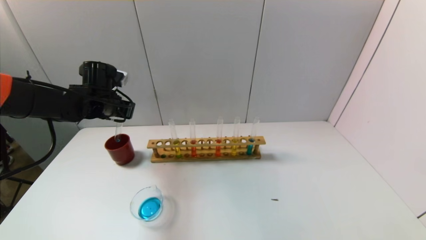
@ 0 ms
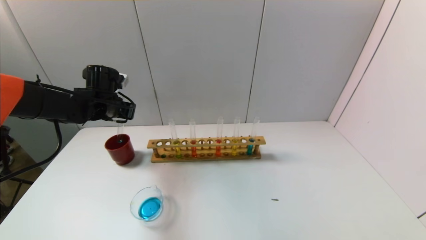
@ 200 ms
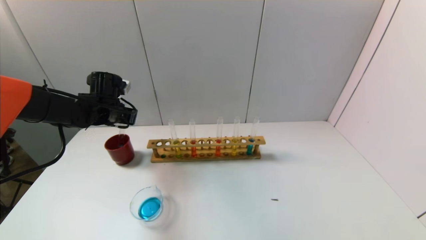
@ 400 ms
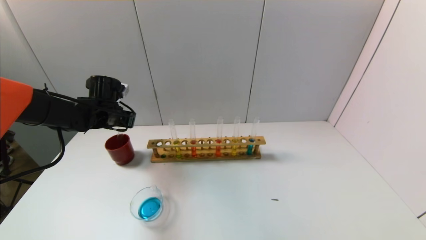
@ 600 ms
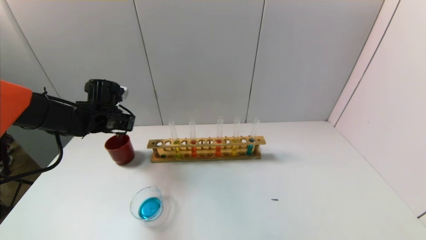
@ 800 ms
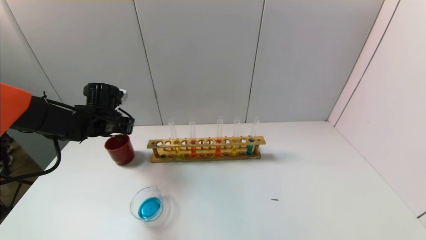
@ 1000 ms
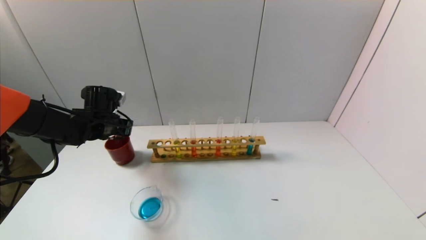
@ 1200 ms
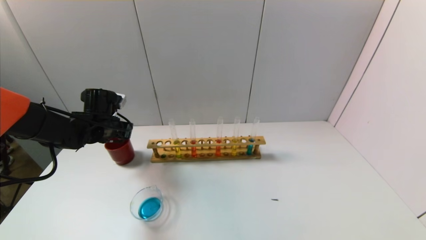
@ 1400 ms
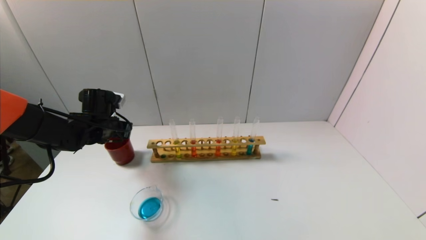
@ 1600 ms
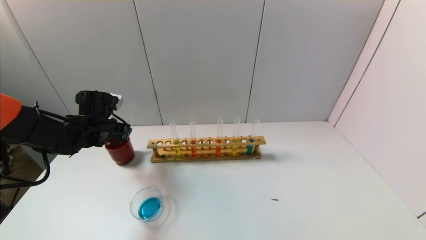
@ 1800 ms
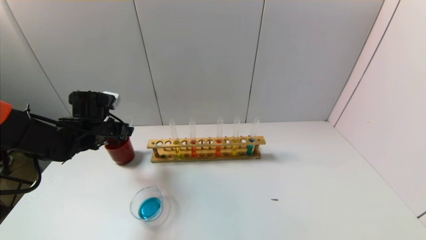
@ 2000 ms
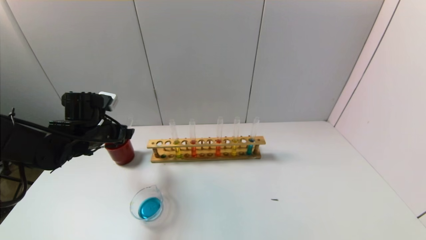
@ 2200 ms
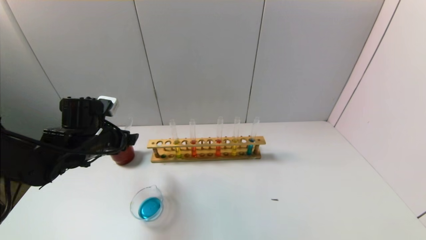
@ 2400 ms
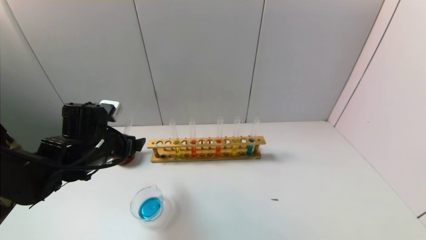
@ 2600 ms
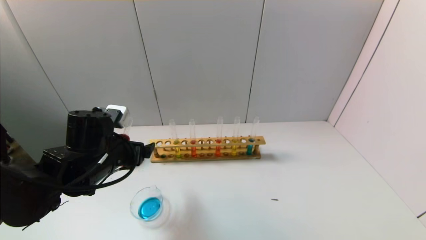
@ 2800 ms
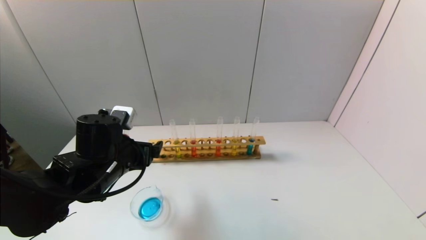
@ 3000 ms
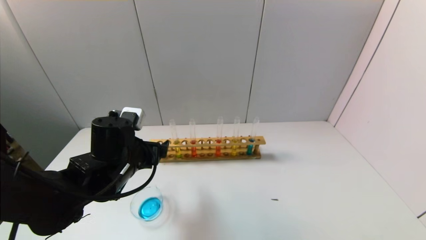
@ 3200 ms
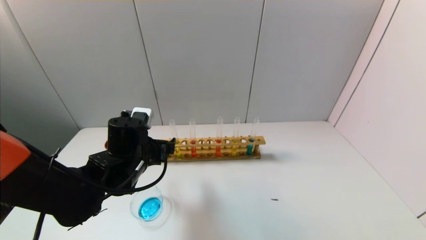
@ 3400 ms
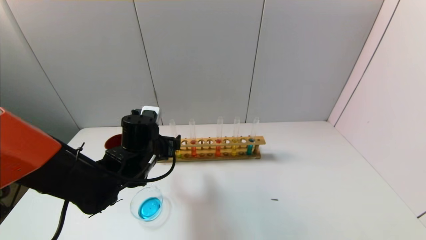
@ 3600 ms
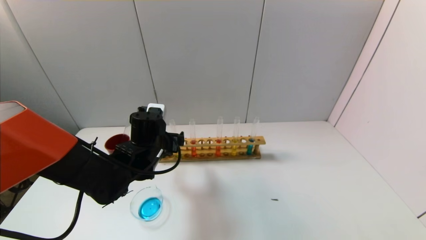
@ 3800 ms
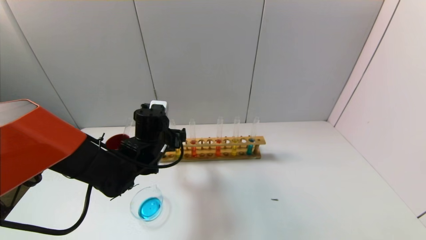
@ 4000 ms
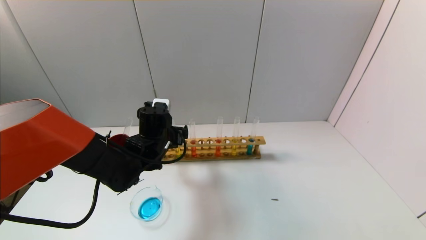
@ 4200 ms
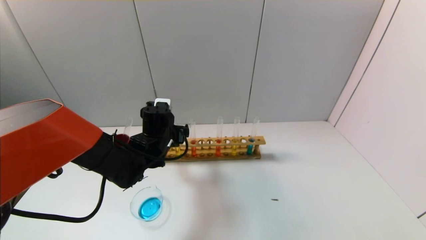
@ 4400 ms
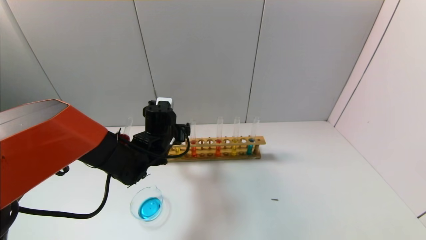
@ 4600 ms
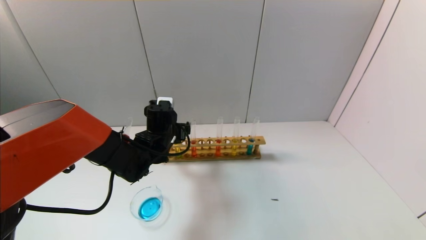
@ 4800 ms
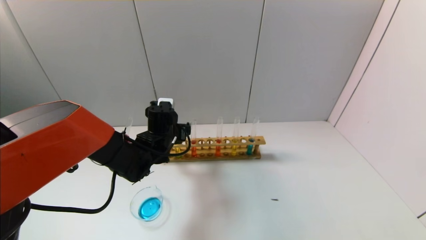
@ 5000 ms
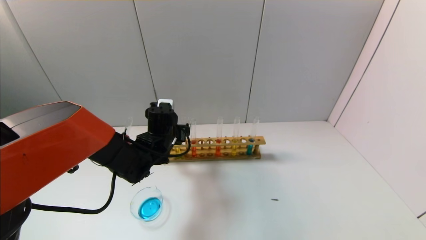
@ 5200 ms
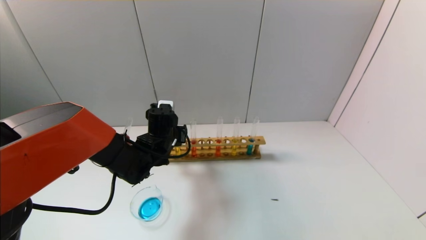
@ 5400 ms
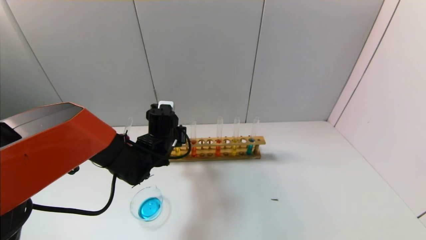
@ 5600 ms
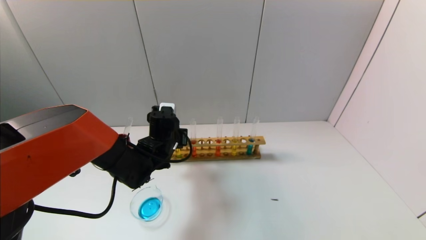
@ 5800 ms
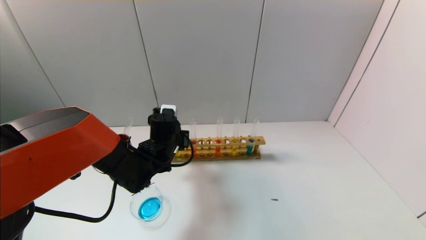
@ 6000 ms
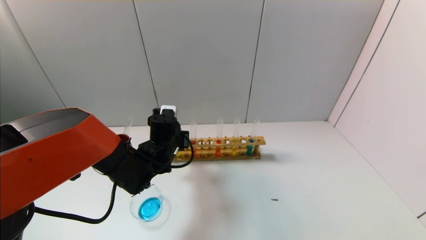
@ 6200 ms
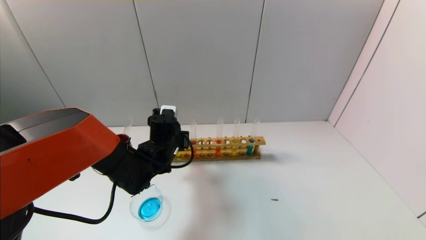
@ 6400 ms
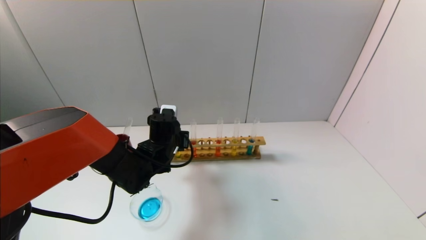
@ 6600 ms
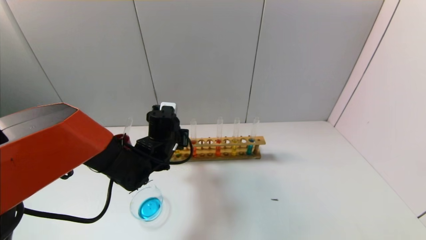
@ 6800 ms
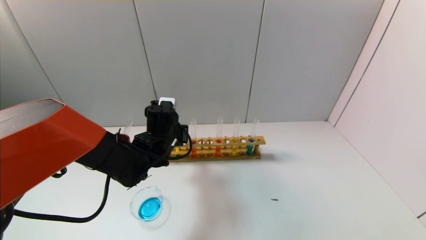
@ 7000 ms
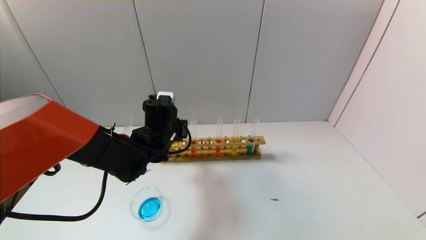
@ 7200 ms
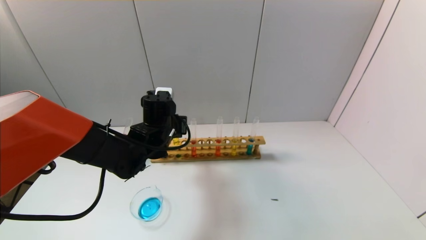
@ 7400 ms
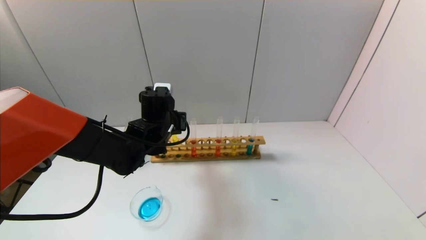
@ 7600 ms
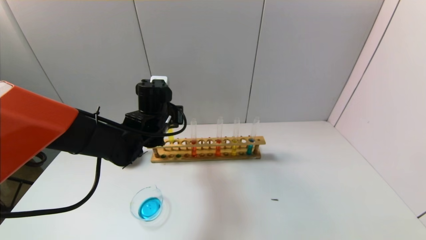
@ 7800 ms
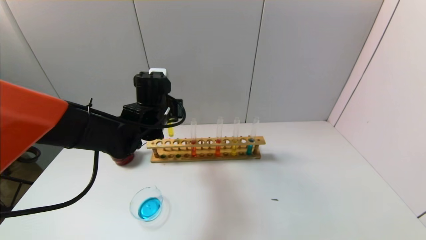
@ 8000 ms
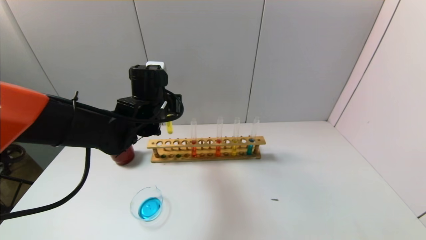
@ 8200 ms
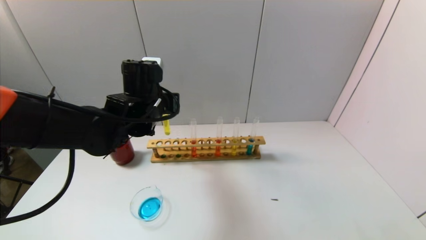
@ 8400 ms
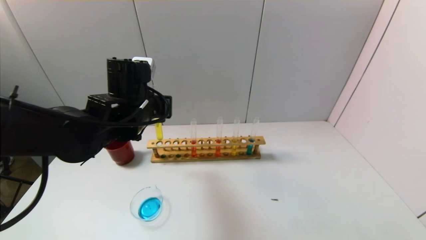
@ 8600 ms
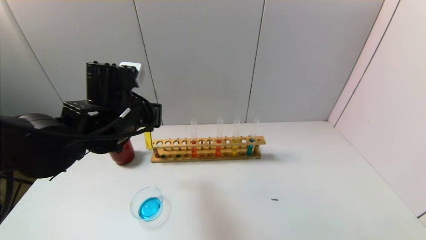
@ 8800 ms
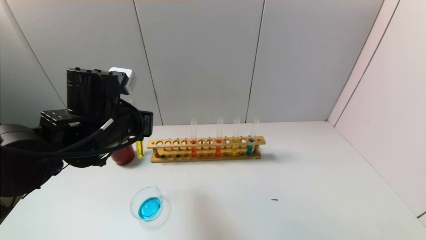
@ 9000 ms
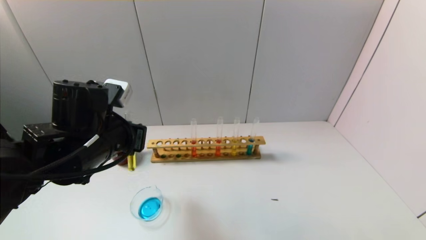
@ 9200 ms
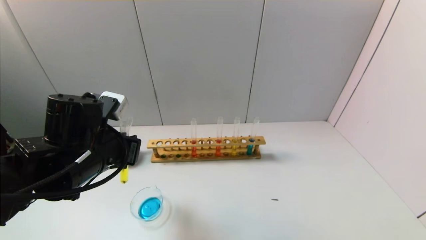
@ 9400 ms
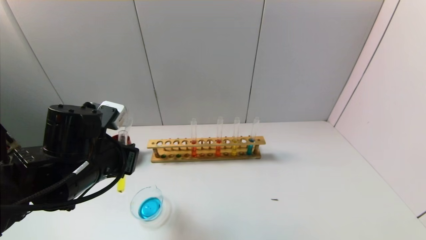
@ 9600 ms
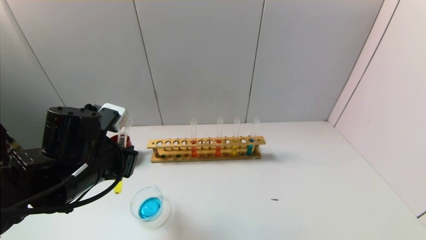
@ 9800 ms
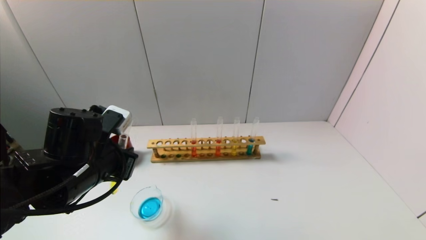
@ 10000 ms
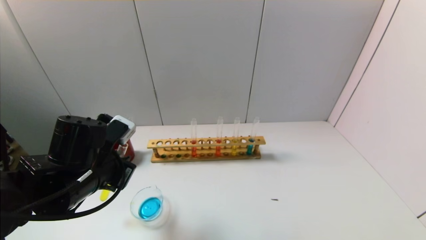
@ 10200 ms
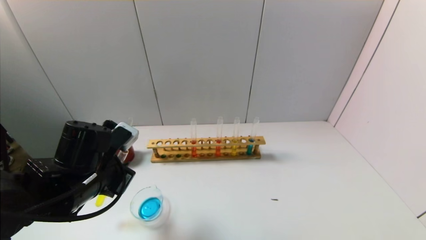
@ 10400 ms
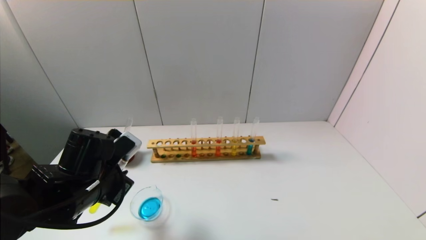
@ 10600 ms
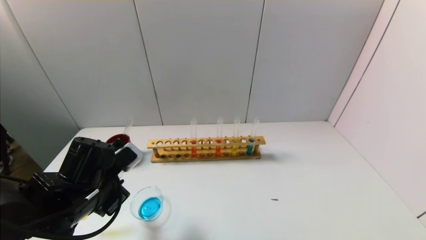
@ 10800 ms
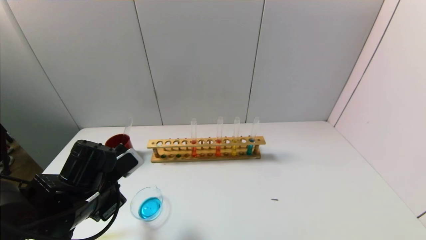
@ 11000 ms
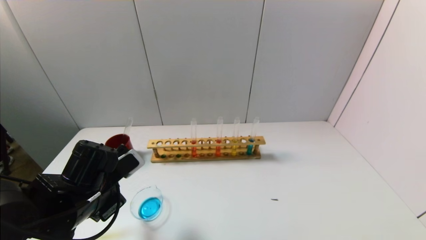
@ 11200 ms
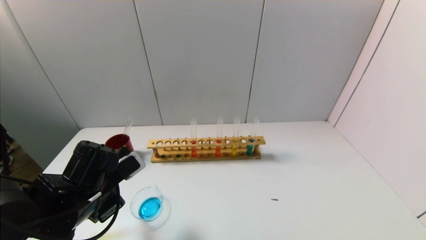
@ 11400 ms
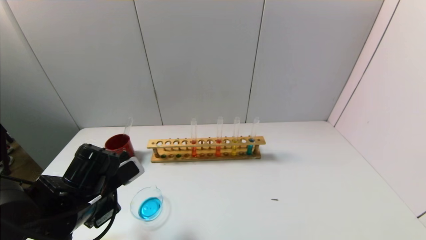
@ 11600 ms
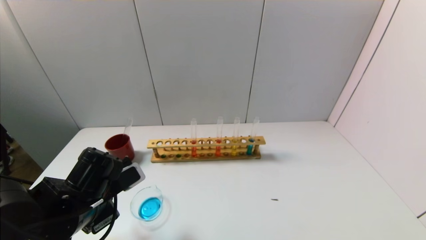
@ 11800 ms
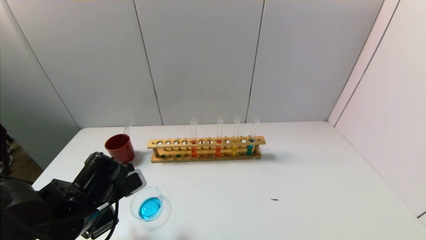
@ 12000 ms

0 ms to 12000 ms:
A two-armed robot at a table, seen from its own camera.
Task of the whole recording: pick up the test tube with yellow pigment and the test tube with blue pigment by grippers and pour them into the beaker.
Step, 0 ms to 2000 ms: Place the test tube into the brown cup with the left gripper.
Step, 2200 ms to 5800 ms: Grasp the yellow reagent with the left gripper.
0 ms to 1600 ms: The left gripper heads downward, covering some 5 cm.
1600 ms to 3000 ms: The left gripper travels backward and to the right by approximately 15 cm, and opens its fingers.
3000 ms to 4400 ms: The left gripper is displaced forward and to the right by some 10 cm.
4400 ms to 6000 ms: The left gripper closes.
6000 ms to 7600 ms: The left gripper shifts some 5 cm upward.
7600 ms to 9000 ms: The left gripper travels backward, upward and to the left by approximately 15 cm.
9000 ms to 10400 ms: The left gripper moves downward, roughly 5 cm.
10400 ms to 12000 ms: The left gripper changes place by approximately 5 cm.

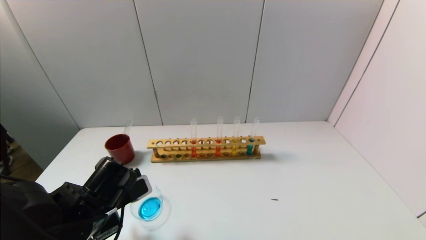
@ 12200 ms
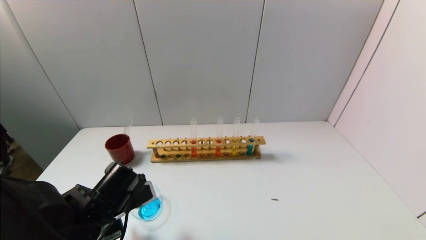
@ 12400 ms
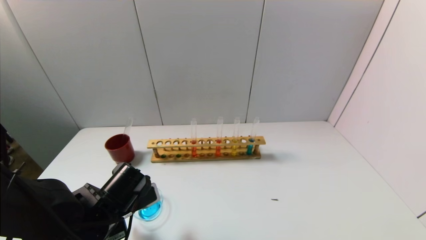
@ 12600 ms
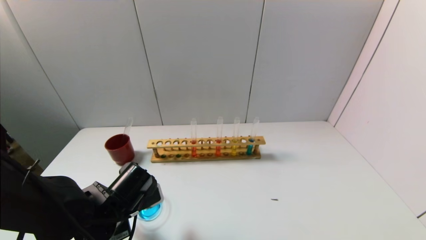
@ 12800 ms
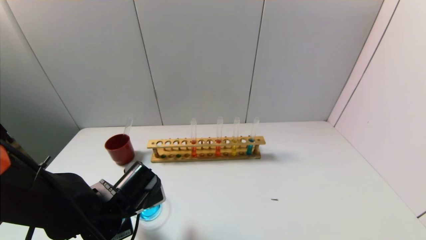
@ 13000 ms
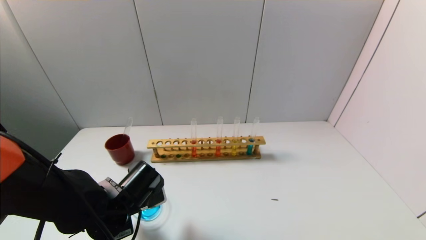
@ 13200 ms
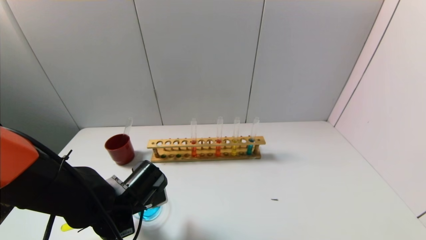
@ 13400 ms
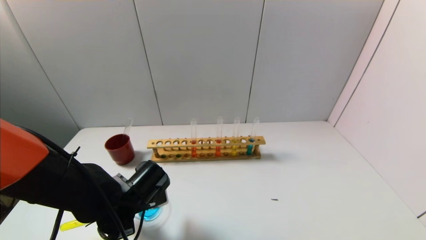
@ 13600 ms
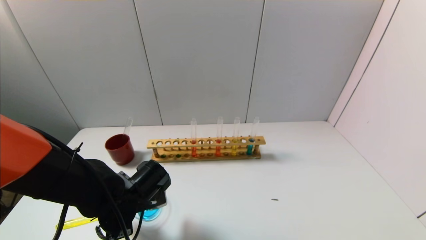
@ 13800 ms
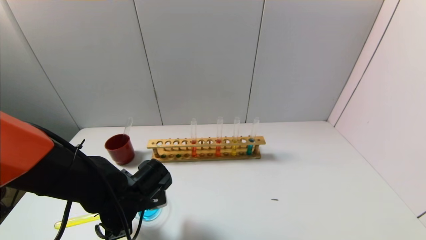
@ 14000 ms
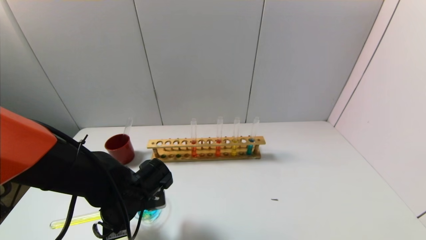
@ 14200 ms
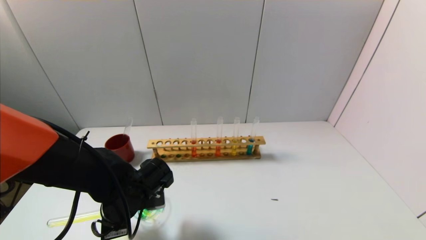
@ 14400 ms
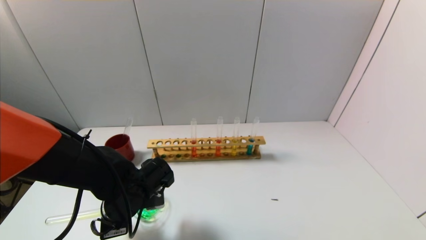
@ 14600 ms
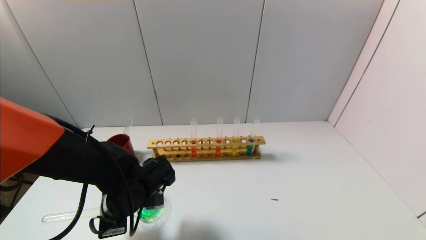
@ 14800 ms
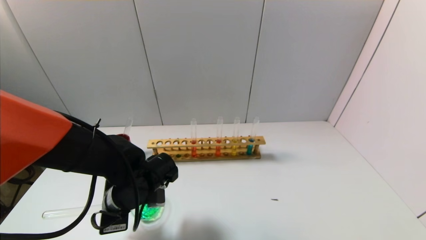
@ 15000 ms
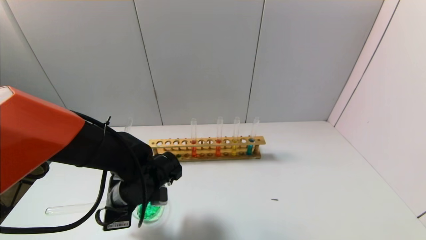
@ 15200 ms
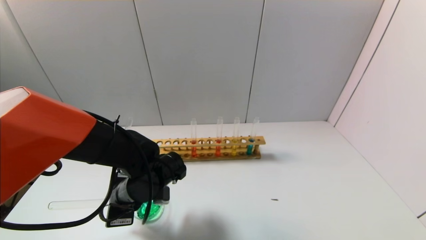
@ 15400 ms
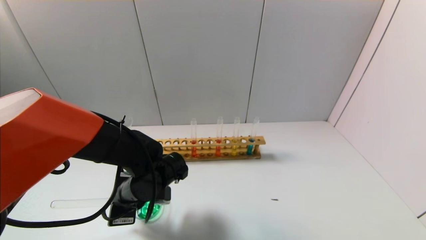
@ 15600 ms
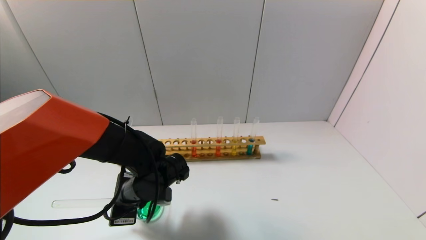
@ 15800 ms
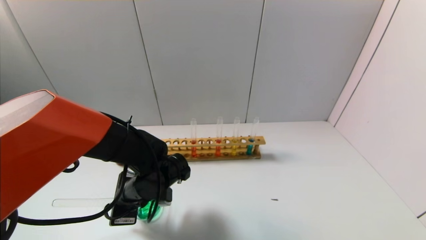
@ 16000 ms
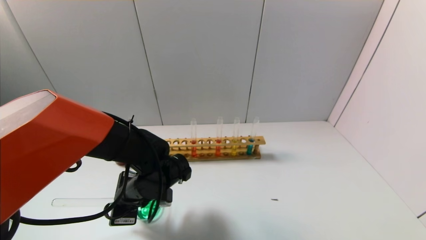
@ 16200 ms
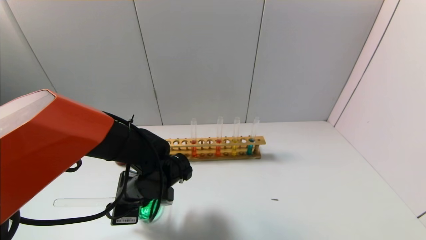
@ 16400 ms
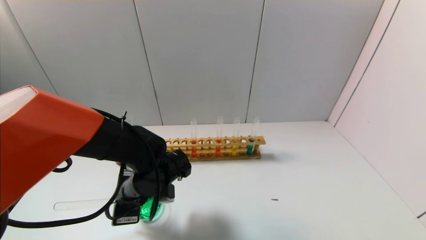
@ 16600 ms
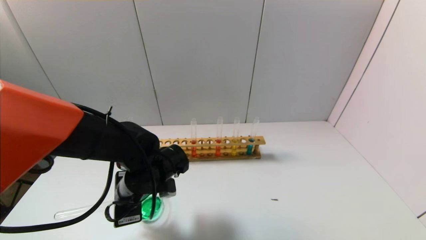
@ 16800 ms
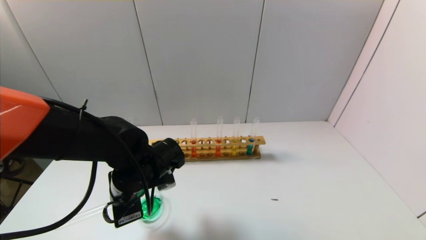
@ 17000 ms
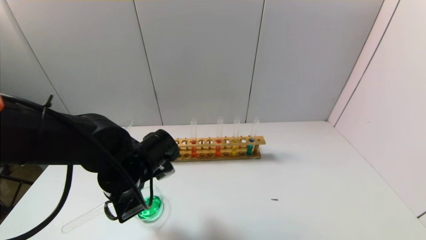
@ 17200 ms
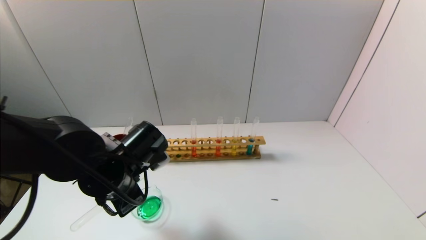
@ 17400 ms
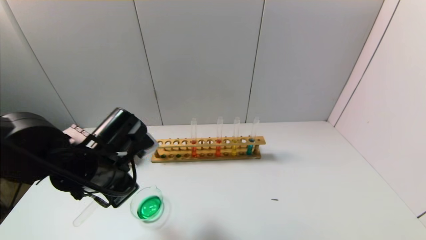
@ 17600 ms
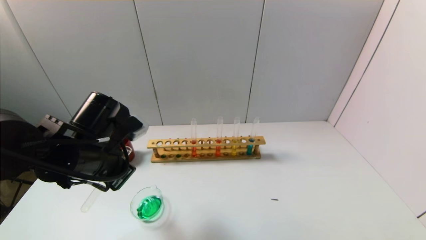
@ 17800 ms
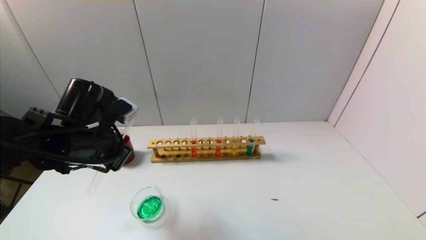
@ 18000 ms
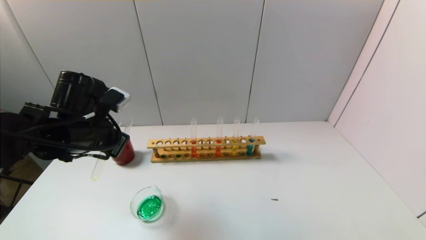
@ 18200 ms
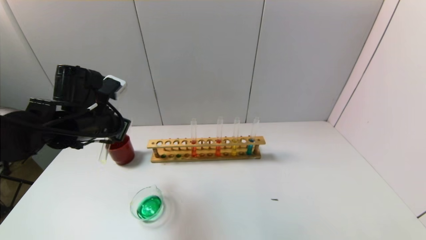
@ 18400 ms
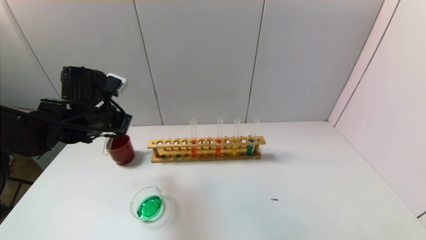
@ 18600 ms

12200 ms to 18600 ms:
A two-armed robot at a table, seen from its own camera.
Task of the whole recording: pick up the test tube with yellow pigment and the test tube with blue pigment by grippers and pour them into the beaker.
Step, 12200 ms to 16600 ms: Pour the yellow reagent into the graduated cylinder with the left gripper.
12200 ms to 13800 ms: The left gripper changes place by about 5 cm.
13800 ms to 15400 ms: The grippers make only small movements.
15400 ms to 17000 ms: The grippers move only a little.
17000 ms to 18600 ms: The left gripper goes roughly 15 cm to the left, upward and forward.
